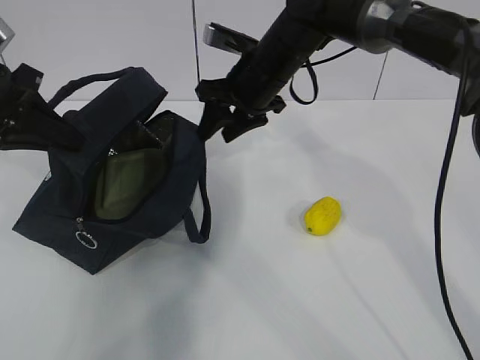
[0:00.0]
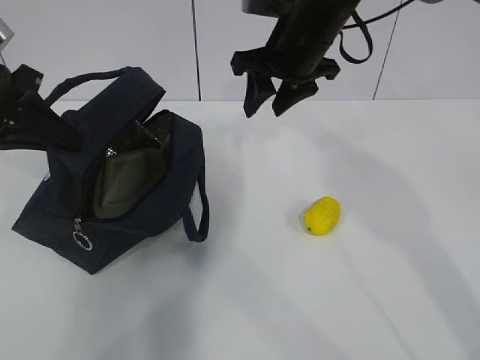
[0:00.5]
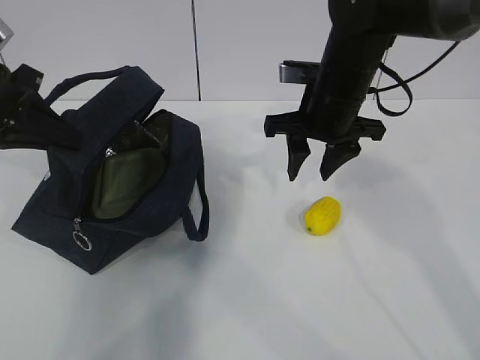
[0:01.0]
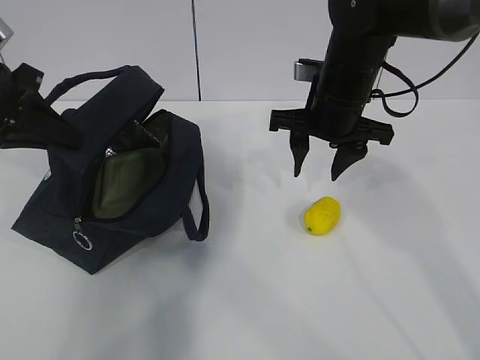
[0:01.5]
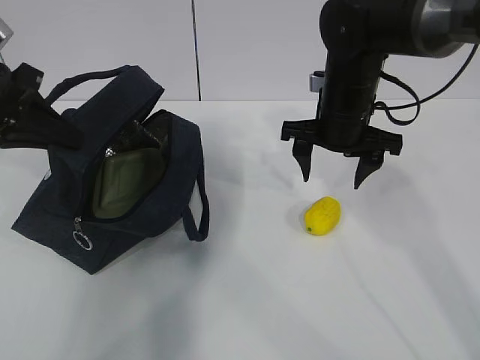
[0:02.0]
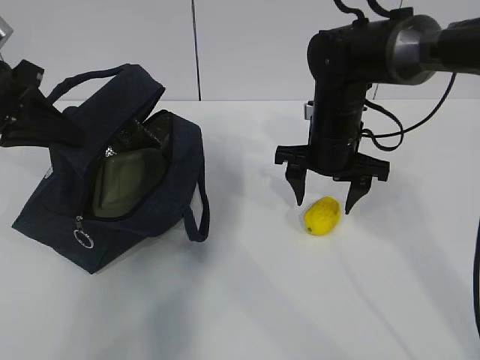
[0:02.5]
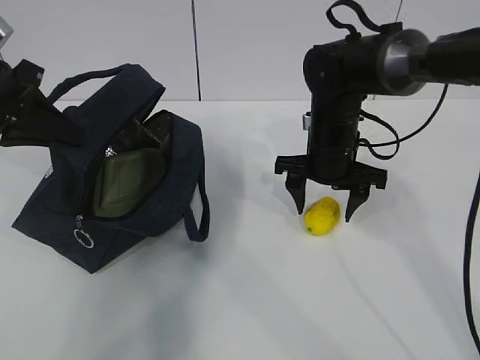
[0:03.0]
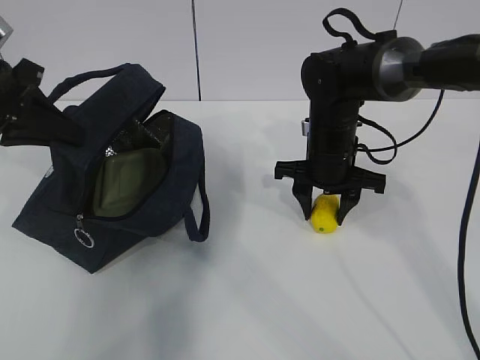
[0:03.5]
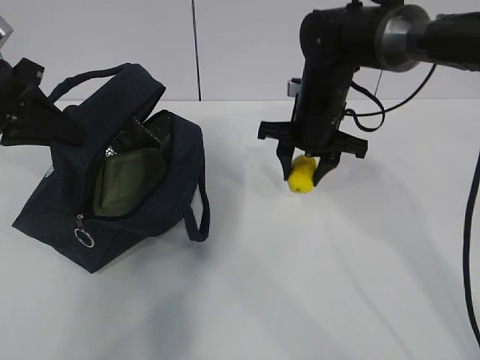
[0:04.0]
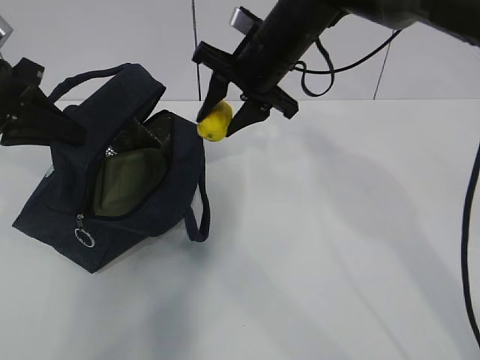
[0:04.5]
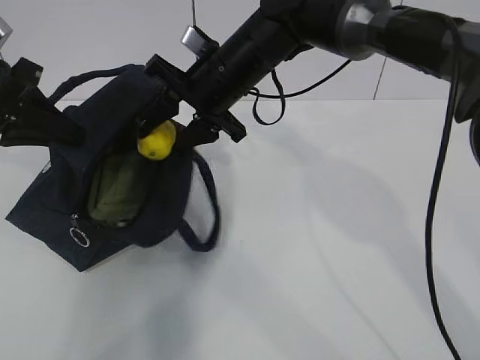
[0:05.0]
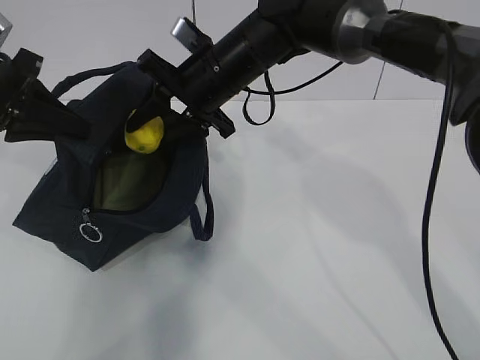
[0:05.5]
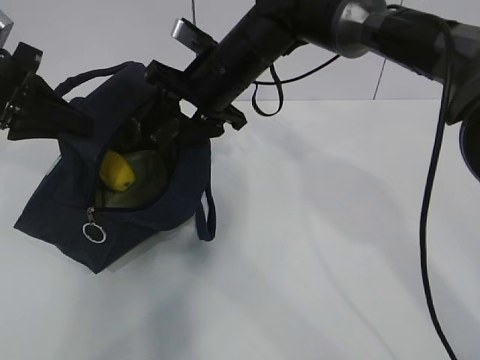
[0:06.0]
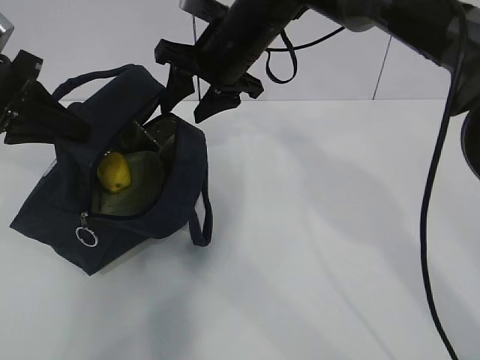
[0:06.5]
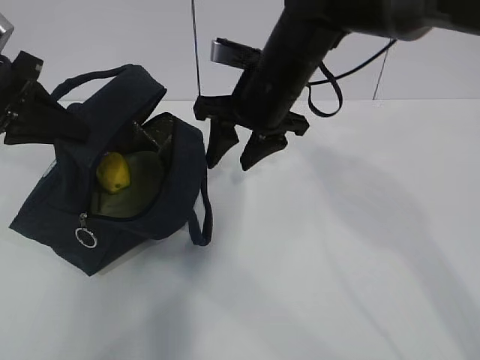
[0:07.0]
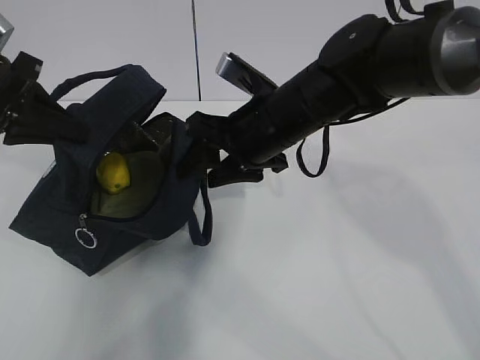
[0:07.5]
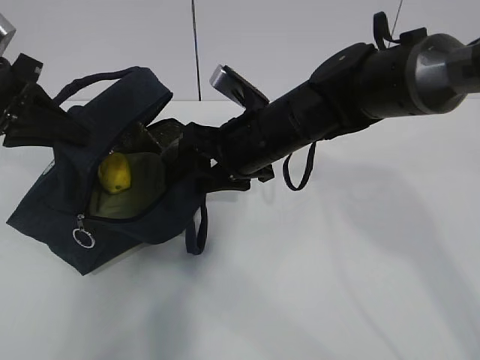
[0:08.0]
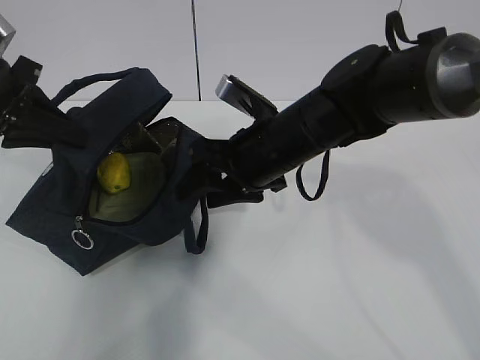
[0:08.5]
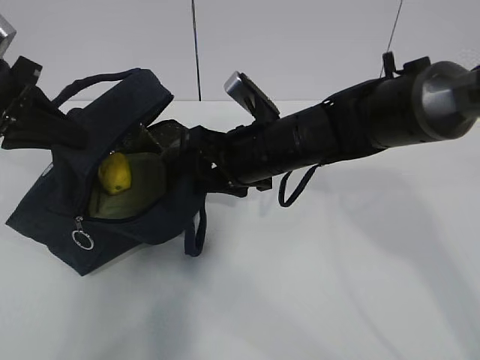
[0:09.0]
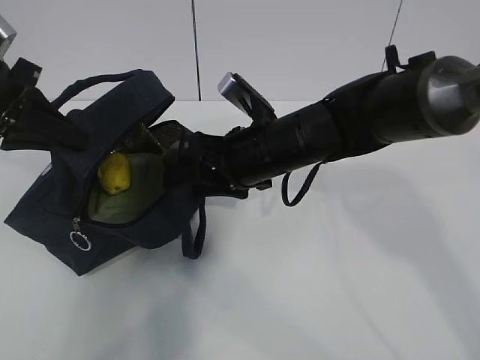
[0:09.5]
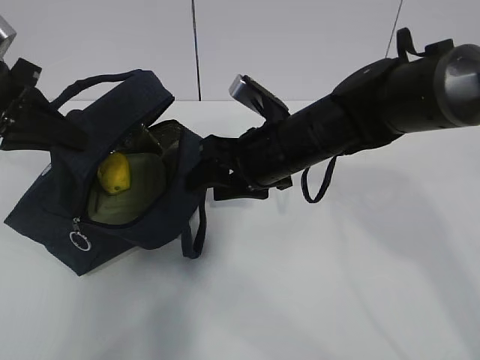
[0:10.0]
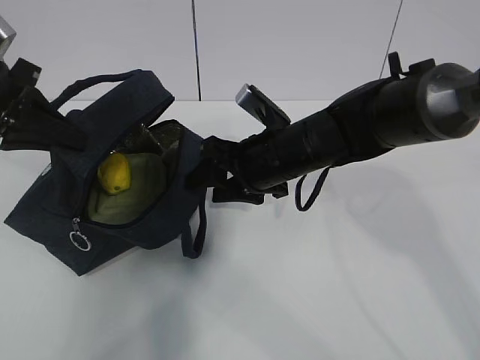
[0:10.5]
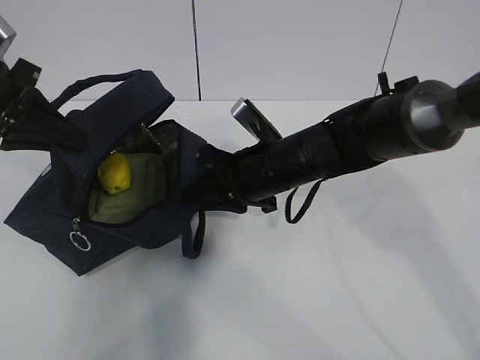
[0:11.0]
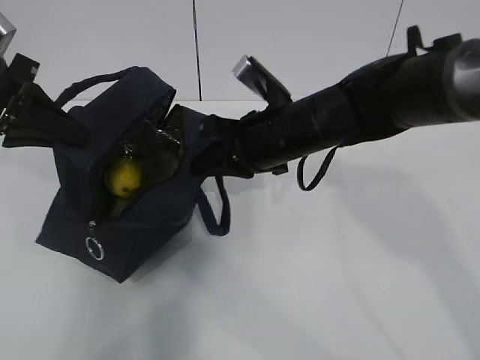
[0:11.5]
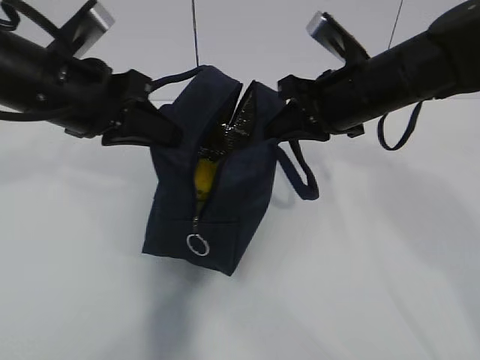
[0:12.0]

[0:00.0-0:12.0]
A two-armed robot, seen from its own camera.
Step, 0:00.5 to 0:04.0: Grab the lunch bag with your right hand.
Step, 0:04.5 to 0:06.5: Move the lunch bag to the right.
0:00.0 to 0:02.0: The right gripper moves to the right, about 10 cm.
0:04.0 to 0:06.0: The right gripper shifts some 10 cm to the left and upward.
0:06.0 to 0:08.0: The right gripper shifts roughly 5 cm backward.
0:08.0 to 0:10.0: The grippers move only a little.
0:10.0 to 0:12.0: The right gripper shifts some 10 cm to the right and upward, and closes. The left gripper is displaced to the right by some 10 cm.

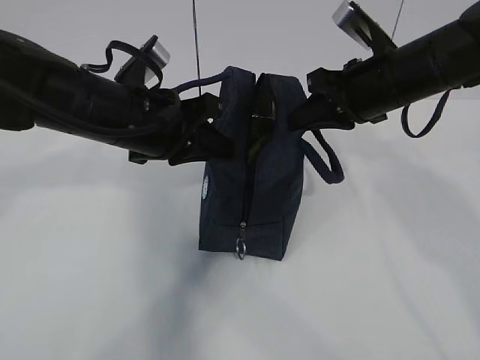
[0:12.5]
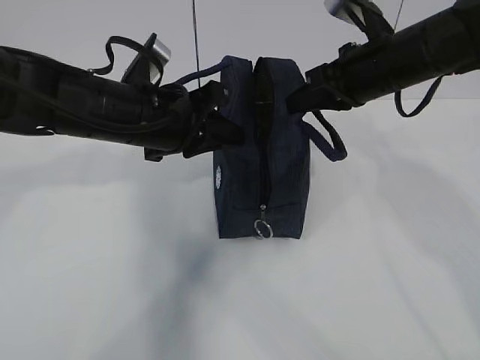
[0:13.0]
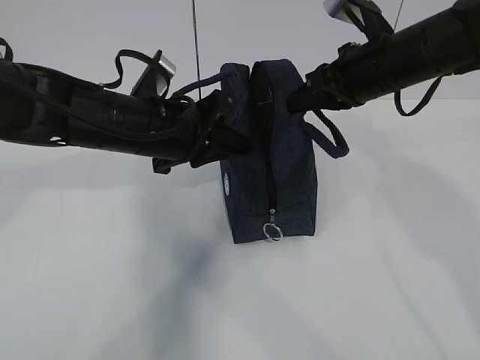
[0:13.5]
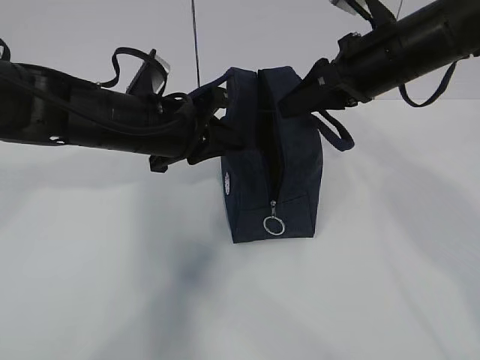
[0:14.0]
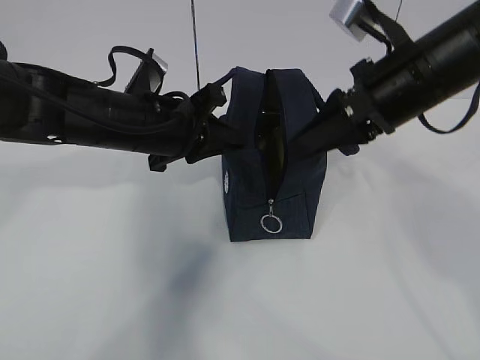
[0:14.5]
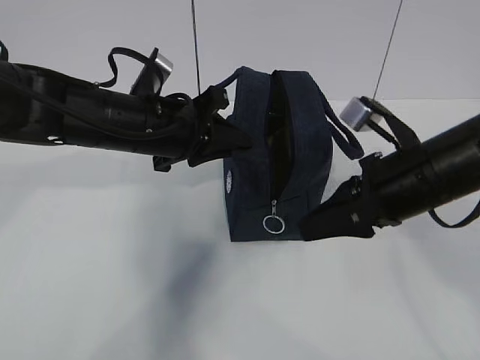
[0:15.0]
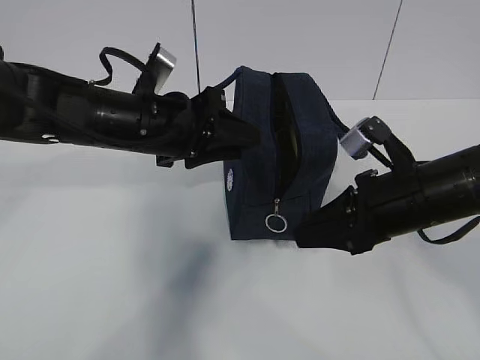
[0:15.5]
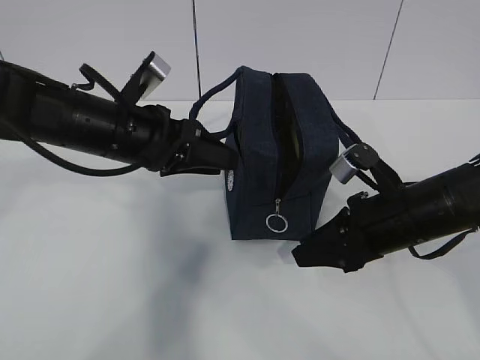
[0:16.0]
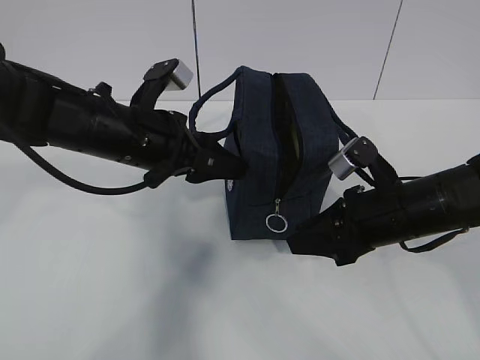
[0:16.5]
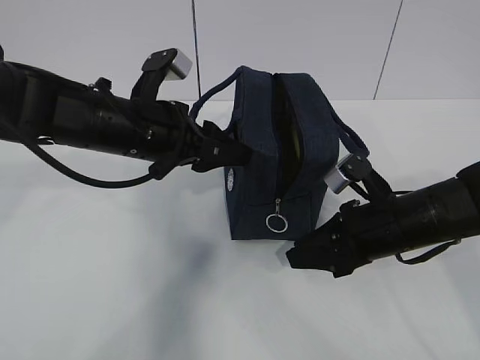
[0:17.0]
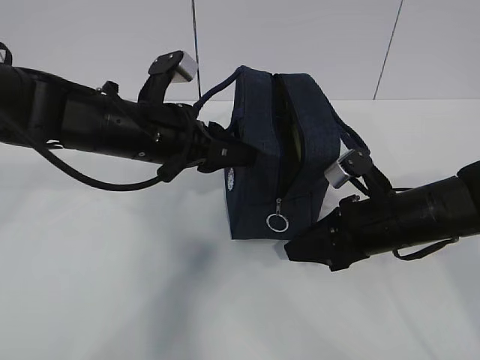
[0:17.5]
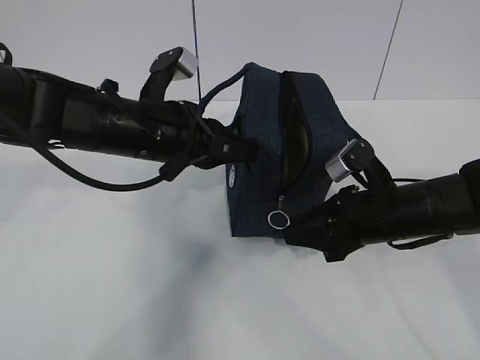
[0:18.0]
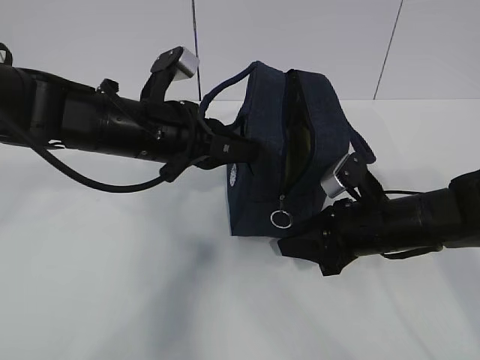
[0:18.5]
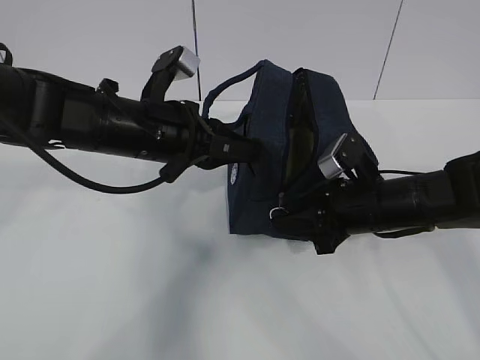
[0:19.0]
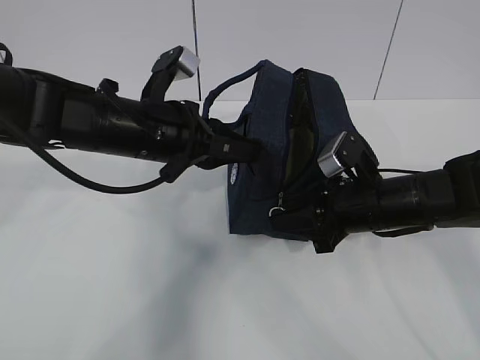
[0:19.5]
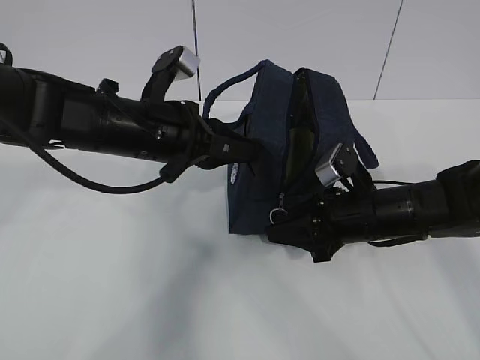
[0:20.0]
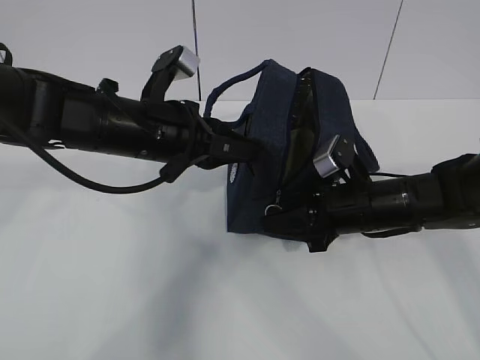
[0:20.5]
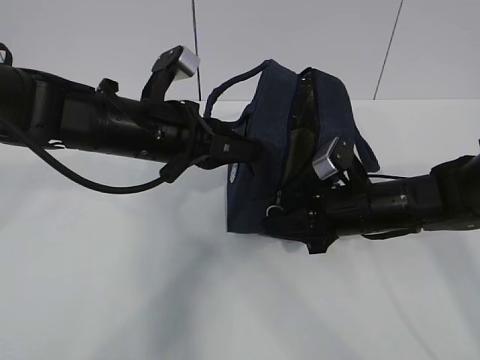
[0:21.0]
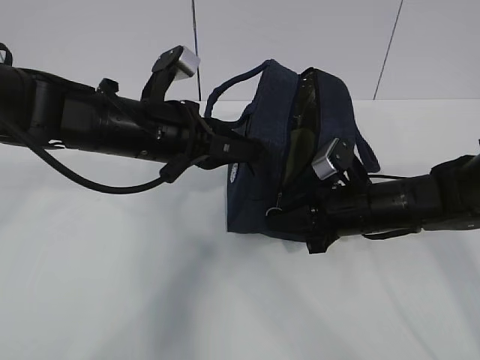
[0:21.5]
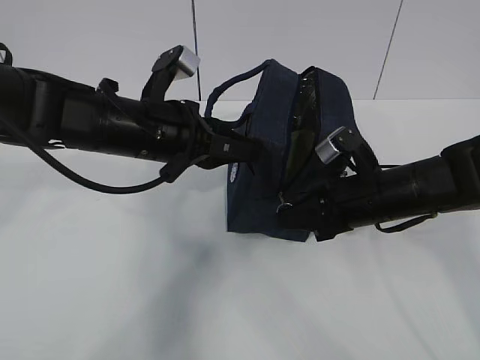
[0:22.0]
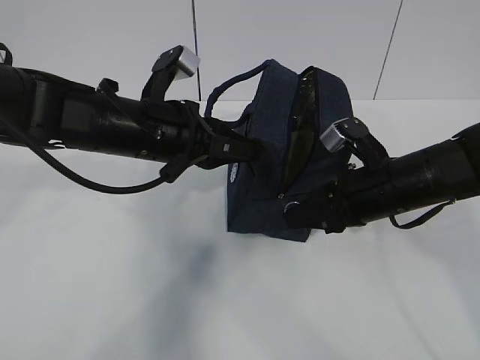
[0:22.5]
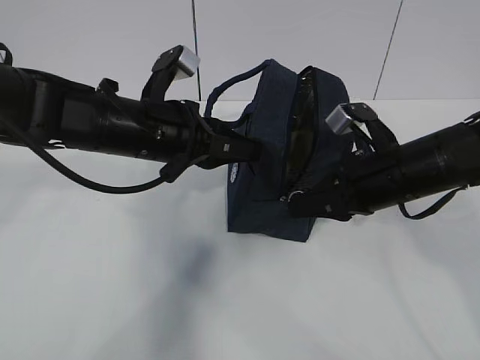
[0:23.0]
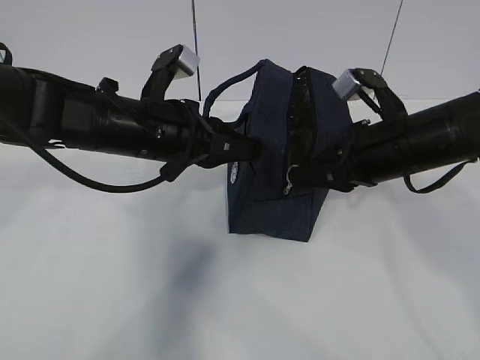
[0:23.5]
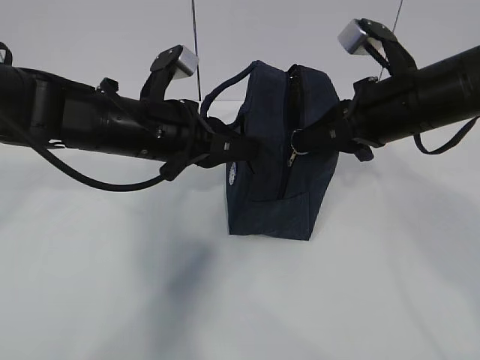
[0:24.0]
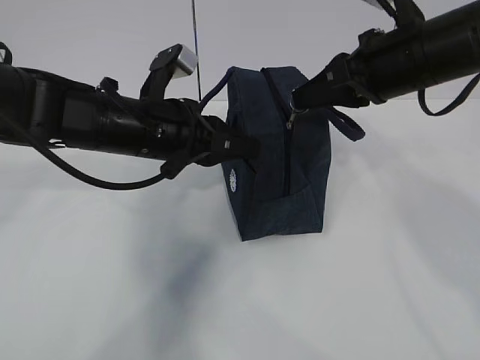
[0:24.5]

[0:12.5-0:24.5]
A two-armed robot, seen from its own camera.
Step, 0:12.5 to 0:22.5: Pull the zipper with your right hand.
0:12.5 to 0:14.5: The right gripper ends up some 5 cm from where it was, and opens up.
0:14.5 to 0:16.5: The left gripper opens its fingers. The right gripper goes about 15 cm downward.
0:16.5 to 0:18.5: The left gripper closes its fingers.
0:18.5 to 0:20.5: The grippers stay close to where they were, moving slightly.
0:20.5 to 0:22.5: The right gripper closes up.
0:22.5 to 0:24.5: The right gripper moves upward, approximately 15 cm.

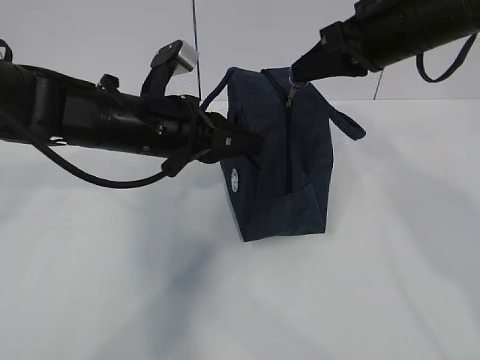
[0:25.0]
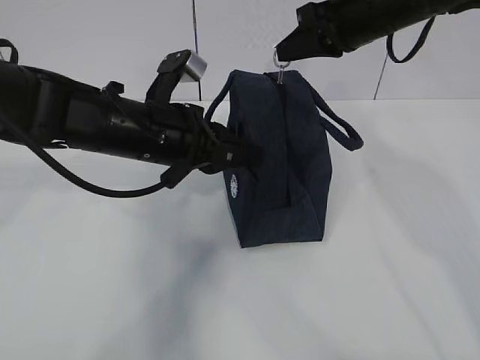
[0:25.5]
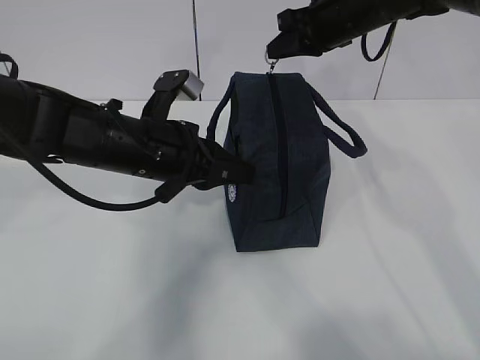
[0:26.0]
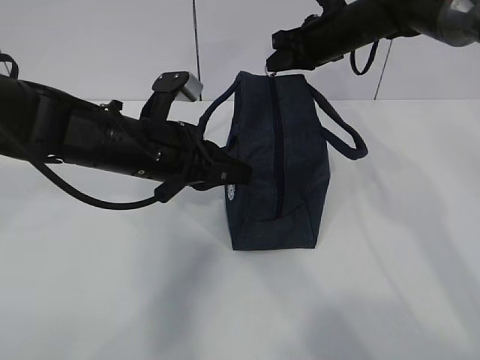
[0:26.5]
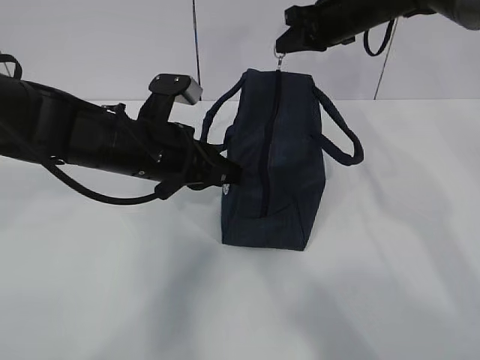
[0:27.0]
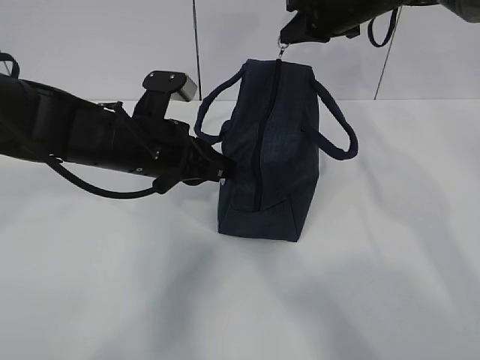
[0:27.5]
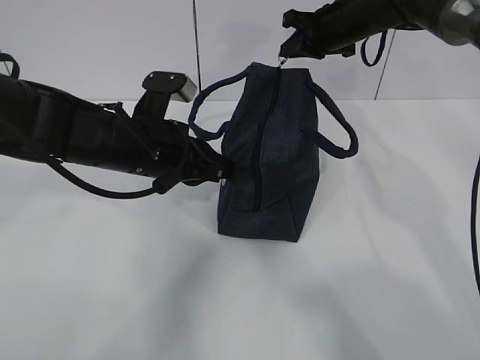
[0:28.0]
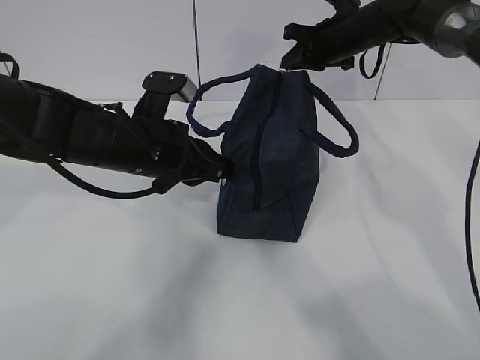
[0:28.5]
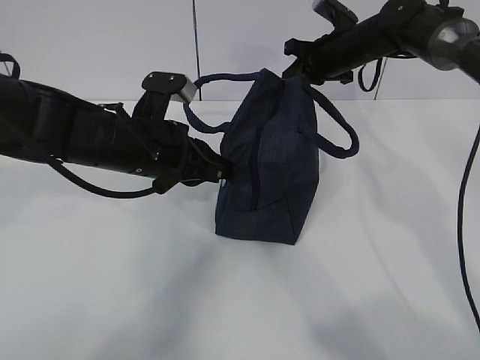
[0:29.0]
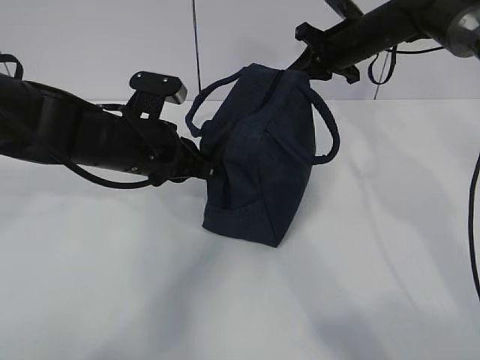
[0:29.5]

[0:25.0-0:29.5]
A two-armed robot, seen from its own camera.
0:25.0 to 0:27.0: The right gripper is displaced forward by some 15 cm.
0:27.0 to 0:29.5: The right gripper changes place by roughly 5 cm.
